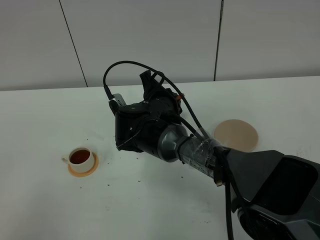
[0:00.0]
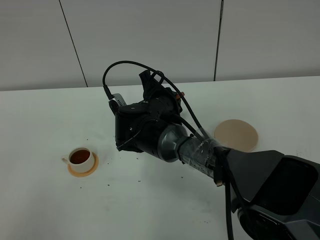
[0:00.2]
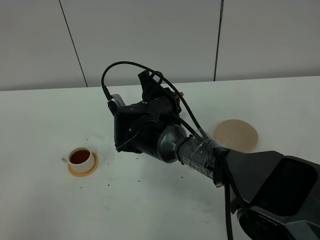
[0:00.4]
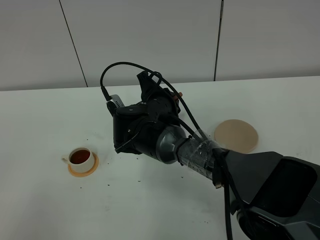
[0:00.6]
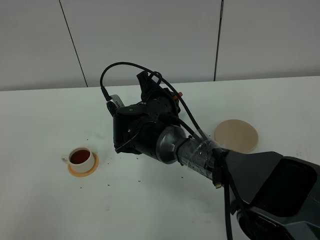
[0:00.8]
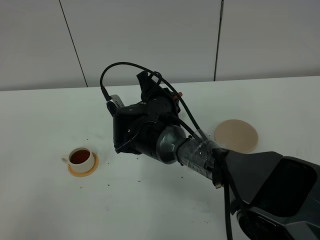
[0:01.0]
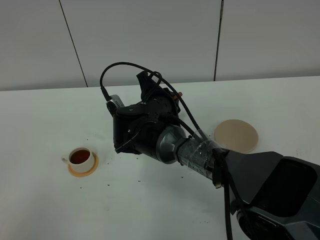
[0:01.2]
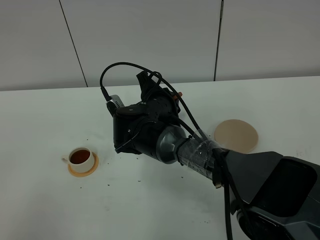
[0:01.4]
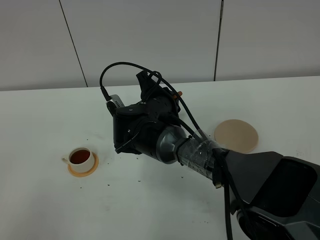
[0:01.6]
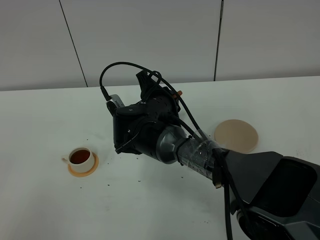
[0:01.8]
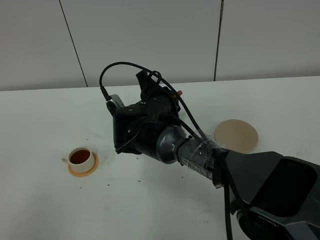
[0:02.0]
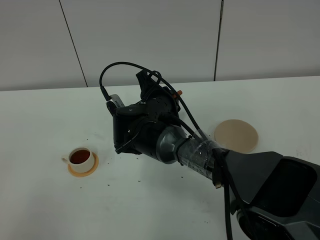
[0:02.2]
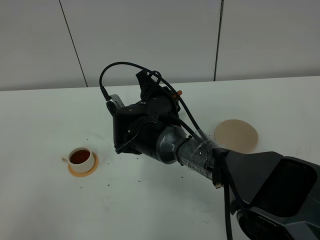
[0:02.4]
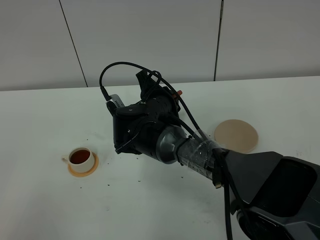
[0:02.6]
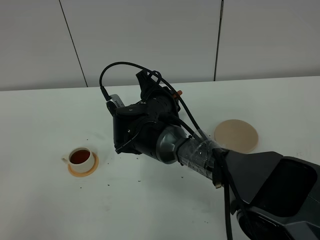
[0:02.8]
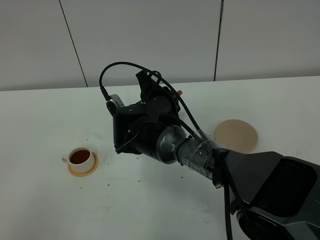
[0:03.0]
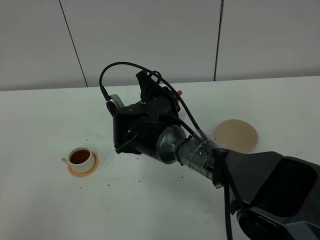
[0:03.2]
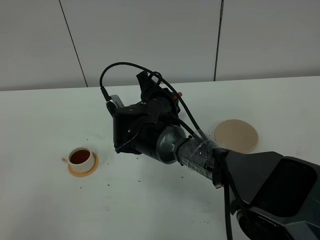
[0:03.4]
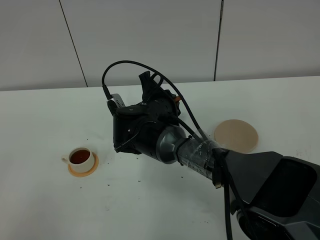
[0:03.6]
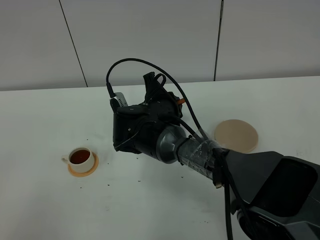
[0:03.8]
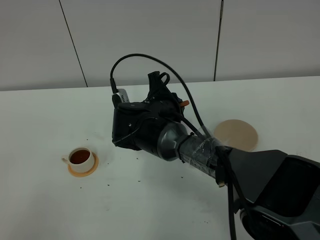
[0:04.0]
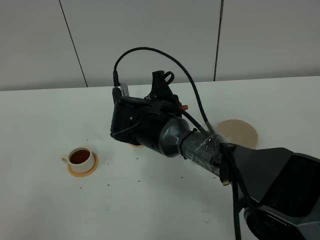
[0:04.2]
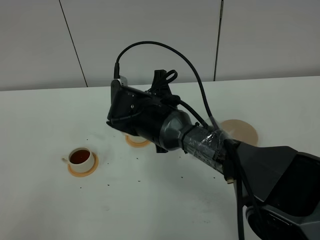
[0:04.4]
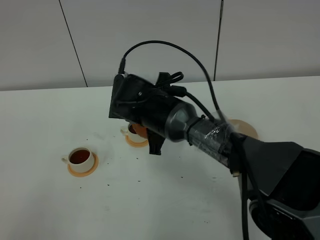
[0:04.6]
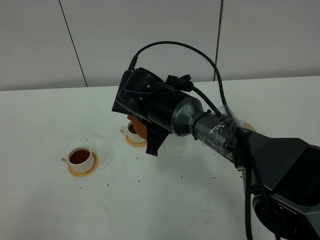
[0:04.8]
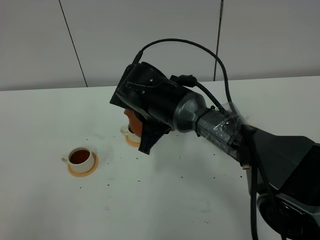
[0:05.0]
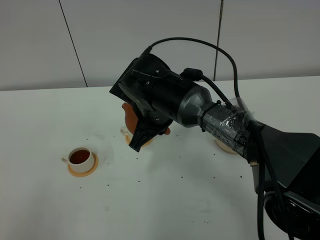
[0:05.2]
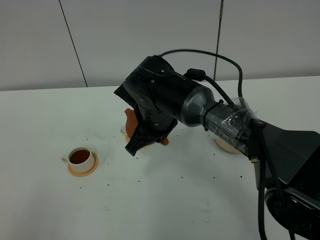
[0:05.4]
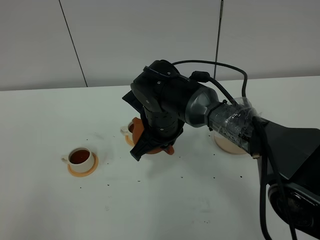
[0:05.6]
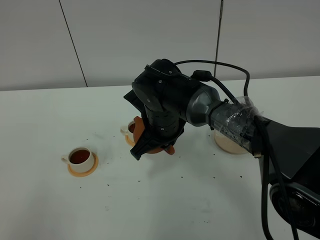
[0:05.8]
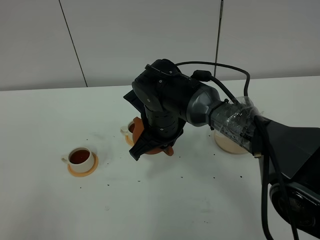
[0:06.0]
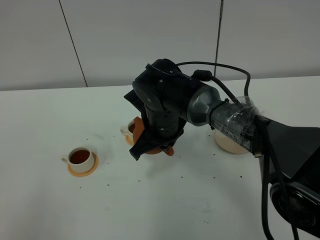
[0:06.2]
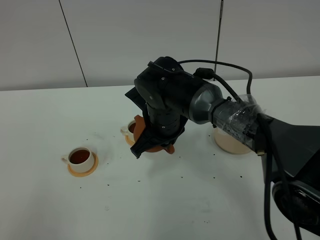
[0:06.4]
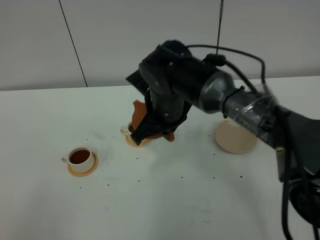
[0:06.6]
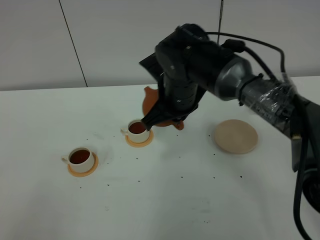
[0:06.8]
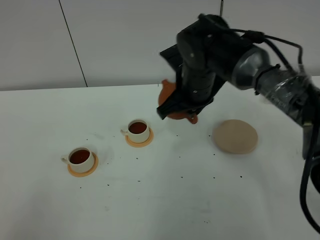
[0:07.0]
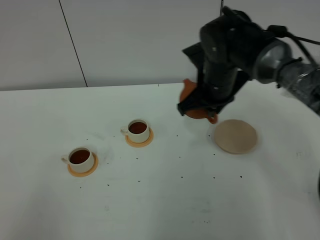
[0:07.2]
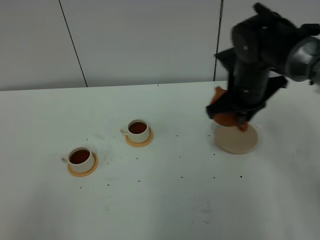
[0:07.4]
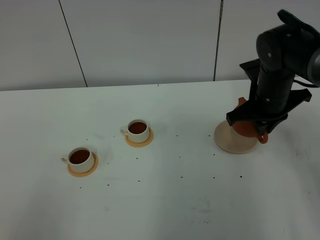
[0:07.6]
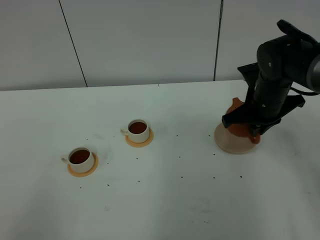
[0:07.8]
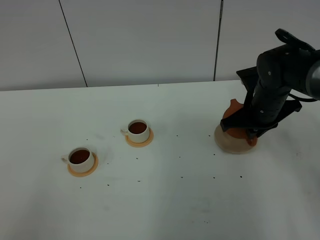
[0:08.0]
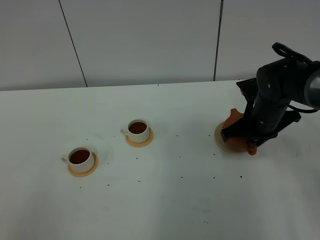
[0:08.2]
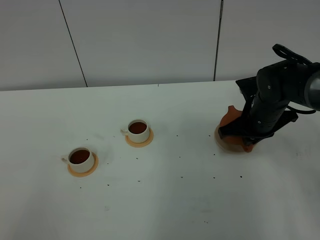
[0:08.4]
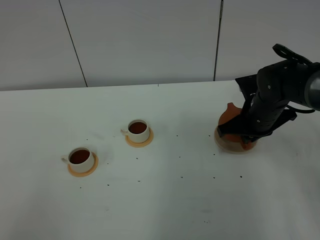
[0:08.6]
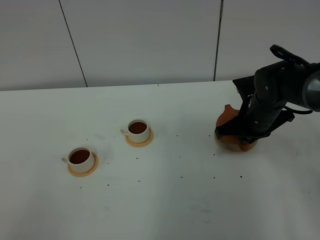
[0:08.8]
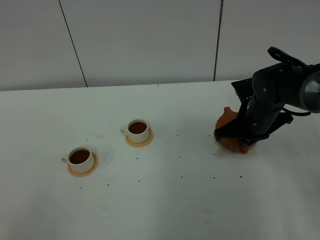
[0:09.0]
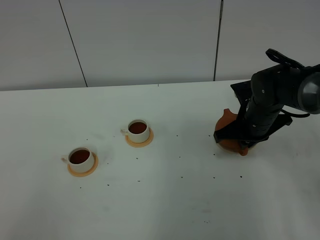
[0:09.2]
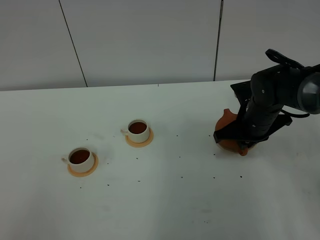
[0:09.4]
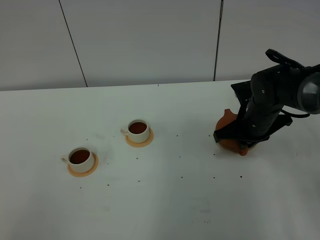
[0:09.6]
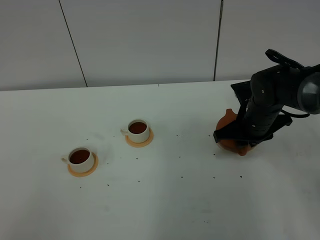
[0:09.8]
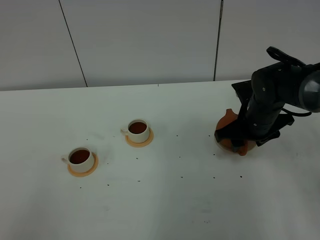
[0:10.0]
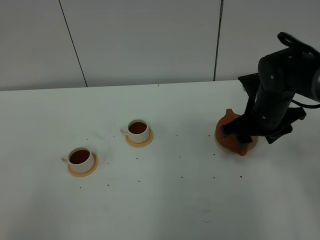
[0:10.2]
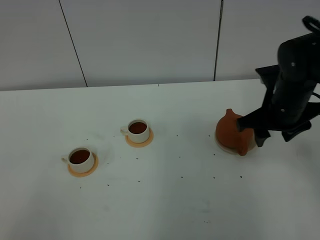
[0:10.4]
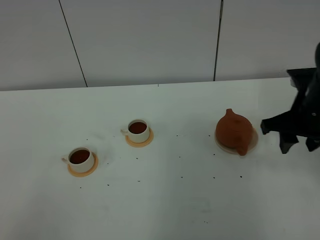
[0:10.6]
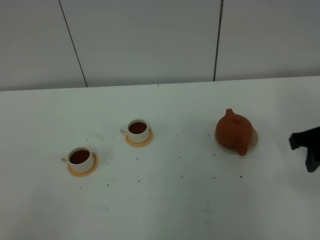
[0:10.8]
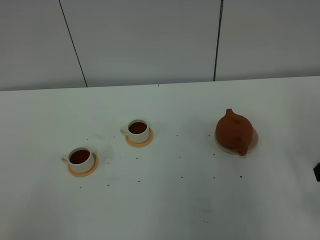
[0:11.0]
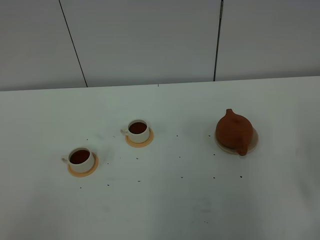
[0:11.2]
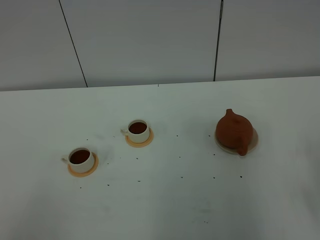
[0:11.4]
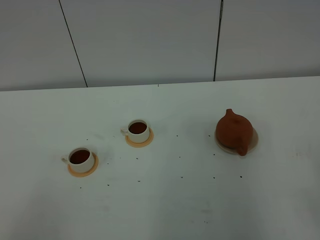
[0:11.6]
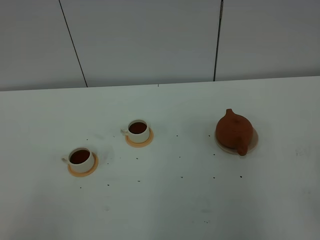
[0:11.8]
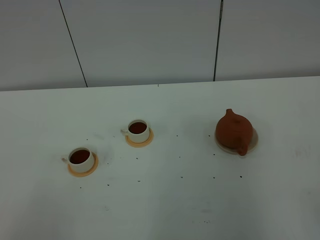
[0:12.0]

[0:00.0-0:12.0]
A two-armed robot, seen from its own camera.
Task of the whole recording: grasp the brown teapot and pour the tea into the two white teacups one by one, put the brown teapot back in its original place.
Step, 0:00.0 to 0:05.0: Pour tea into the teacup with the right gripper.
0:00.0 to 0:03.0: Both grippers stay put.
0:06.0 to 0:07.6: The right gripper moves to the right, some 20 cm.
0:07.6 to 0:09.0: The right gripper travels downward by approximately 5 cm.
0:09.0 to 0:10.4: The right gripper travels upward by some 5 cm, and opens its fingers.
0:10.4 to 0:12.0: The right gripper goes about 35 cm backward.

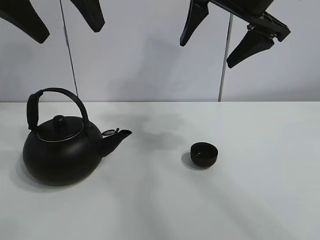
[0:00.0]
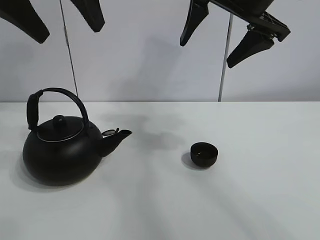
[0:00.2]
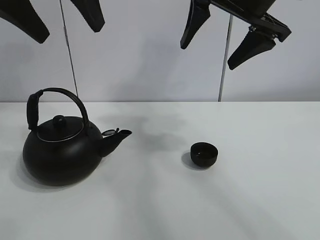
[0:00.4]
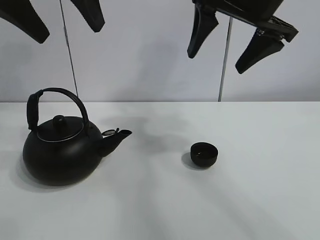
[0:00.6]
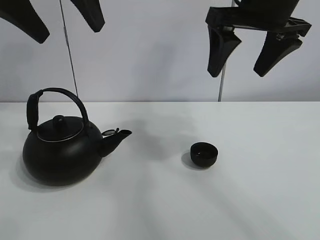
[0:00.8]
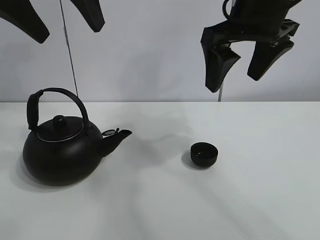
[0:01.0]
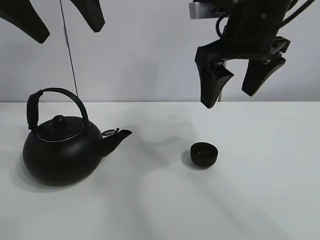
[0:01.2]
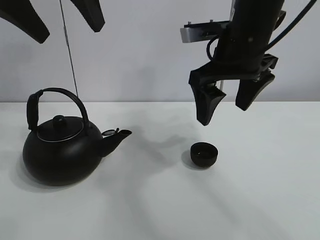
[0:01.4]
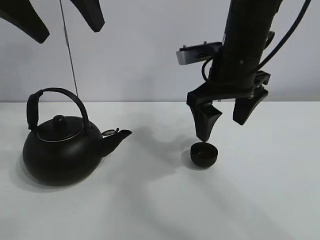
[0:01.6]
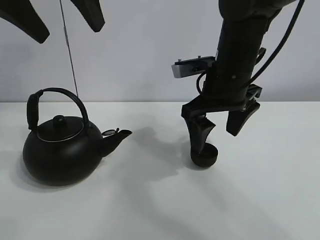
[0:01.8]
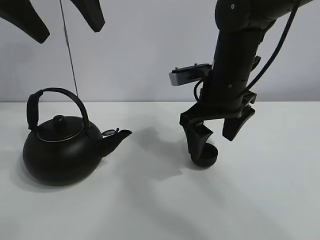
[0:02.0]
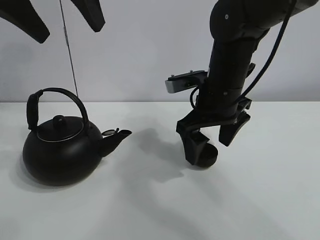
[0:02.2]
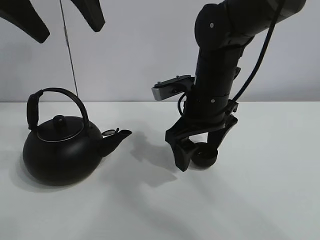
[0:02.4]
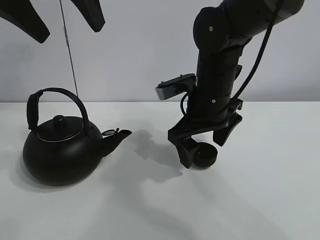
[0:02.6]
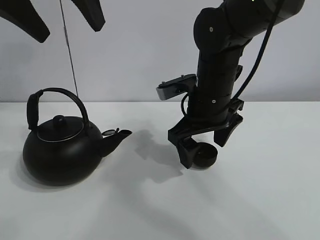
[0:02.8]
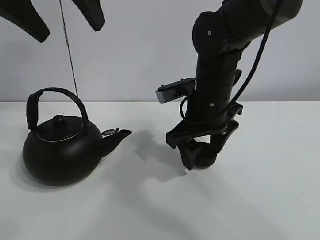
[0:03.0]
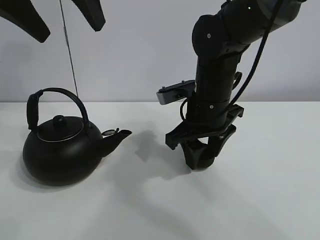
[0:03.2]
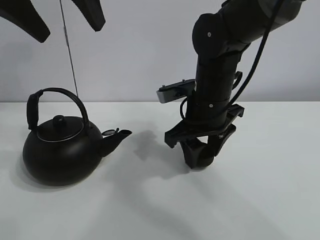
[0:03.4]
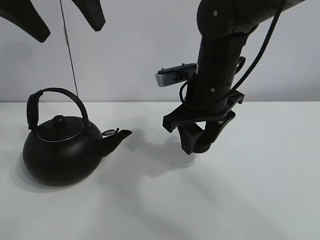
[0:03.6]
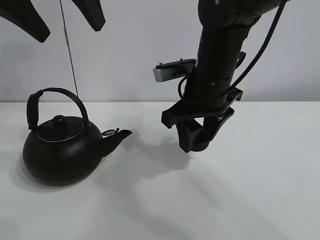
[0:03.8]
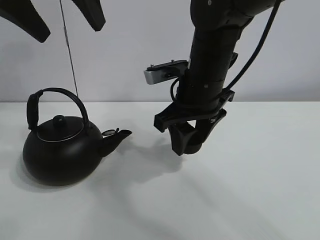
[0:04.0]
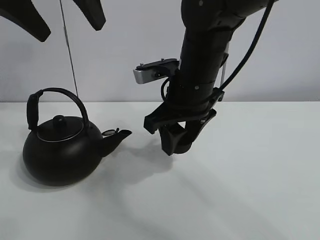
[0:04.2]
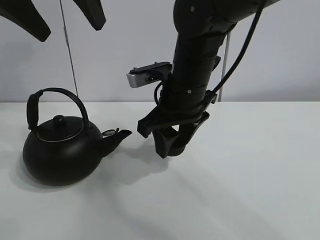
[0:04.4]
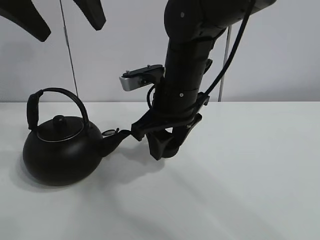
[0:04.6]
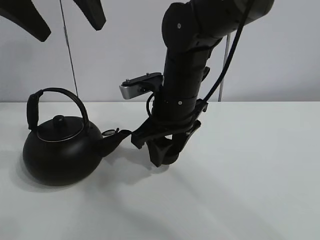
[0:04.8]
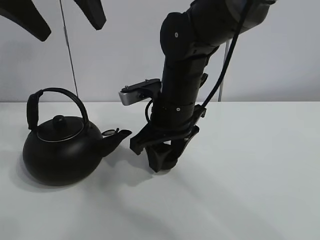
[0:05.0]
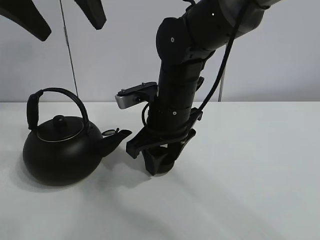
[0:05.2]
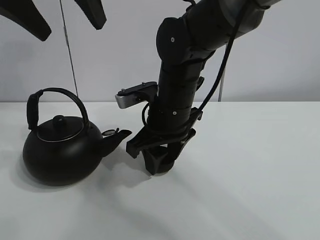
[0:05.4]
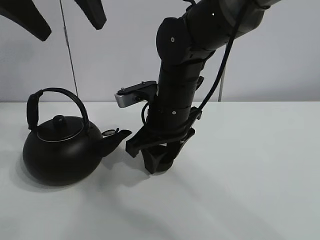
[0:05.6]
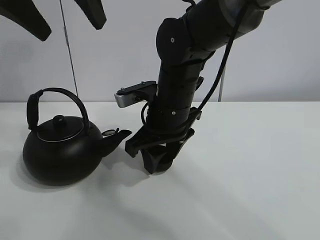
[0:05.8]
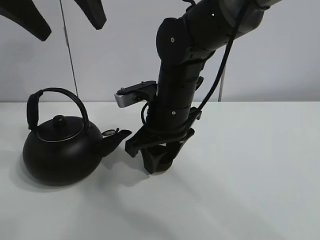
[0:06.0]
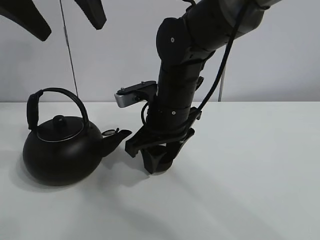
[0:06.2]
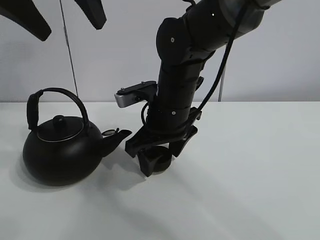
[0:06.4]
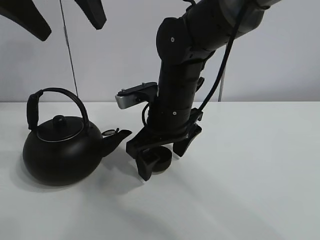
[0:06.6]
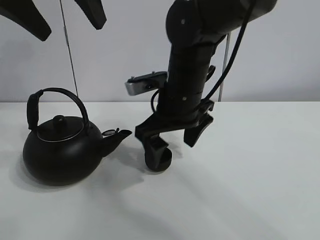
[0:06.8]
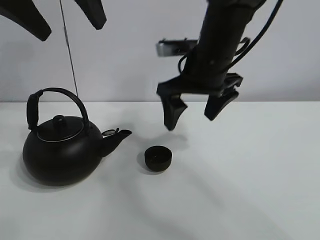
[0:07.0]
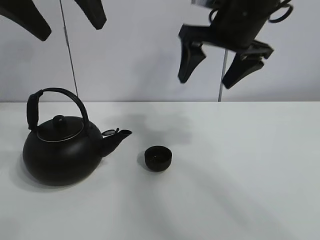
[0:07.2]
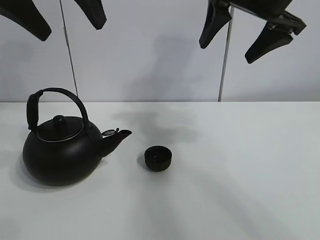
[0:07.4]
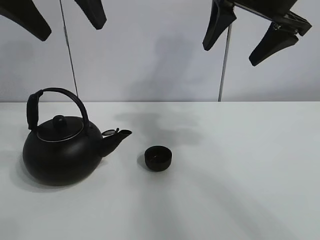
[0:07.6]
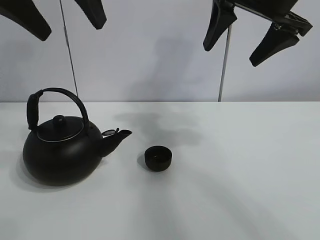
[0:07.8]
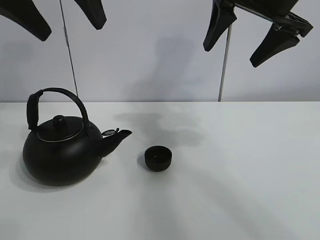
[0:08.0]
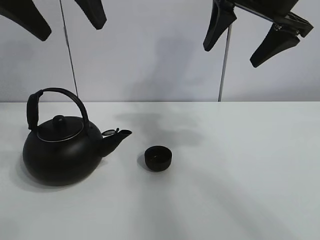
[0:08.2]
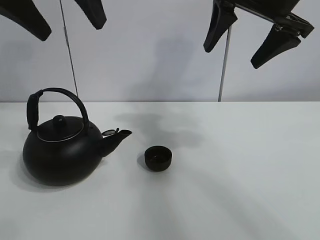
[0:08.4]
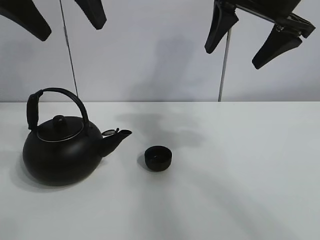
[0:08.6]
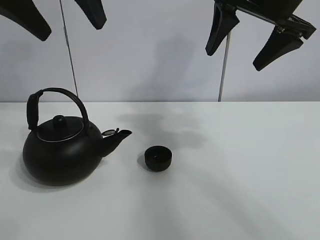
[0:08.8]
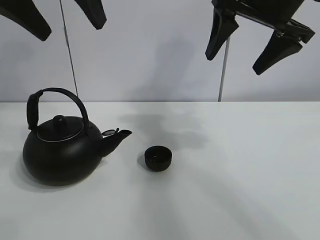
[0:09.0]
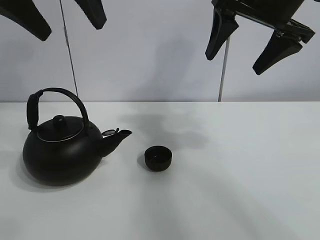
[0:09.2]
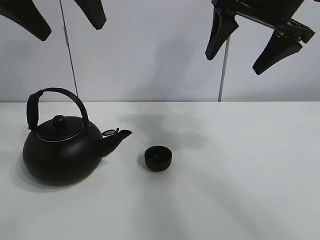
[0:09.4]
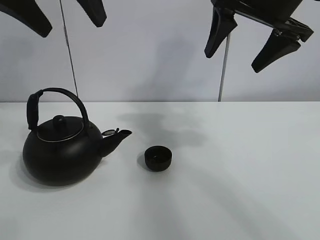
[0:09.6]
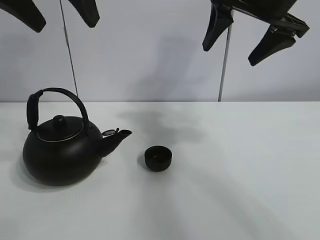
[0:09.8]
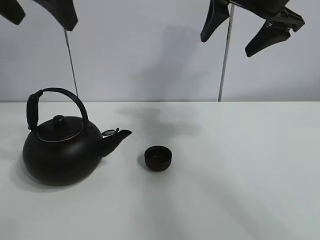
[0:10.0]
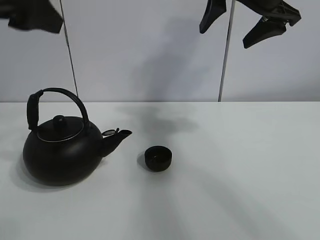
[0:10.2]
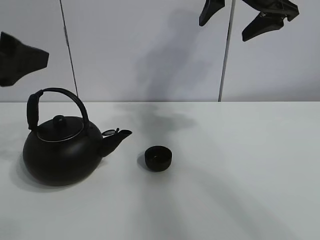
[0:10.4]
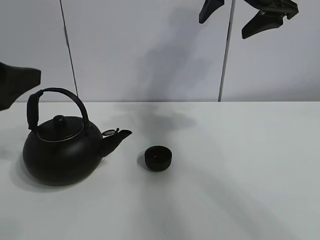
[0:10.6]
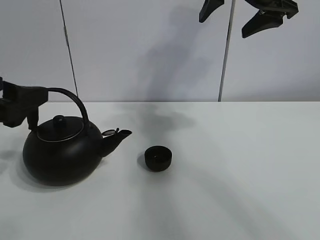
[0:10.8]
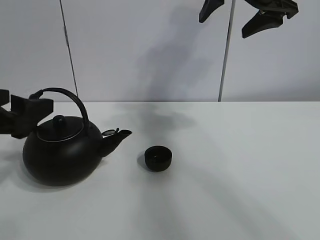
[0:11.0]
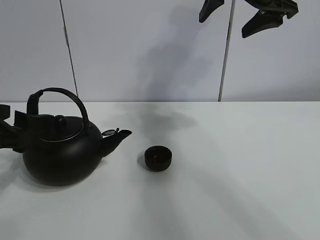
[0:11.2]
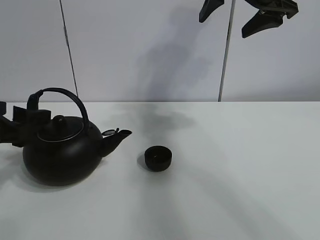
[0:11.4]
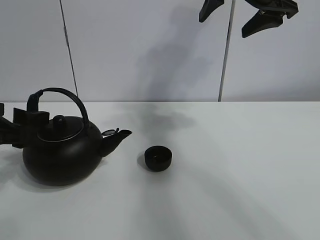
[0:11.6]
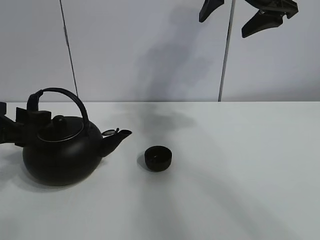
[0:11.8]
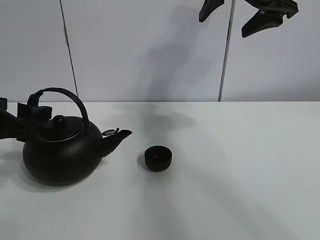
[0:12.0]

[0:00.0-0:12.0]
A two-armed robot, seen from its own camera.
Task of the whole recording: pour tea into the teacup.
Step, 0:00.0 to 0:03.0: Pick up the teacup with the right gripper.
Step, 0:03.2 to 0:06.6: Place the teacup in the center of view with the right gripper.
0:01.6 to 0:03.0: The right gripper is displaced downward by approximately 5 cm, and closes.
0:03.0 to 0:04.4: The right gripper moves roughly 5 cm, and closes its fingers.
0:04.4 to 0:06.0: The grippers stay close to where they were, moving slightly.
0:06.0 to 0:07.6: The right gripper goes approximately 25 cm upward and to the right, and opens its fingers.
0:07.6 to 0:09.0: Both grippers stay put.
0:09.0 to 0:10.4: The left gripper moves downward, to the left and backward, roughly 15 cm.
0:10.4 to 0:12.0: The left gripper is displaced downward by about 15 cm.
